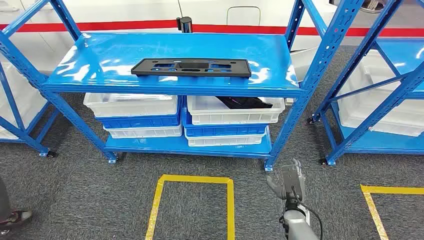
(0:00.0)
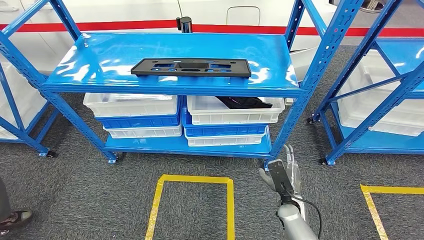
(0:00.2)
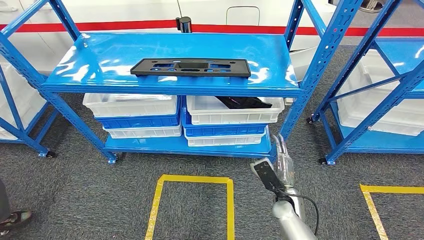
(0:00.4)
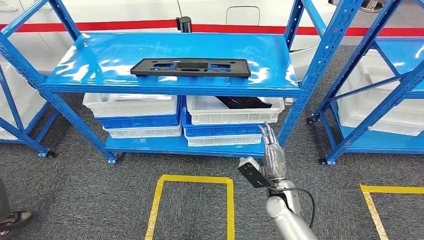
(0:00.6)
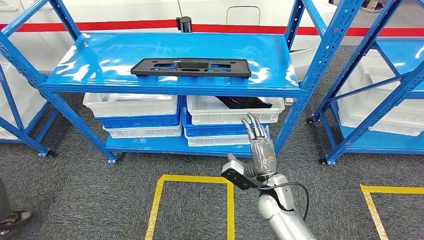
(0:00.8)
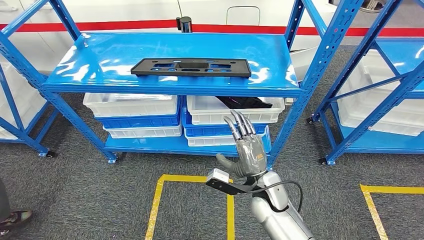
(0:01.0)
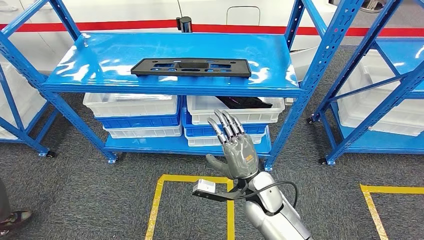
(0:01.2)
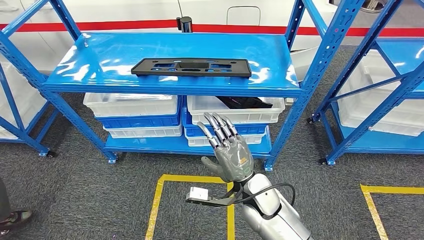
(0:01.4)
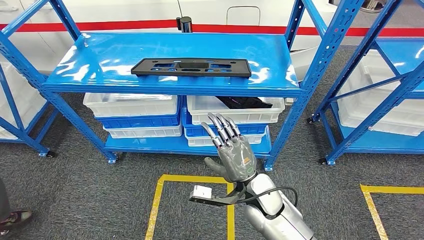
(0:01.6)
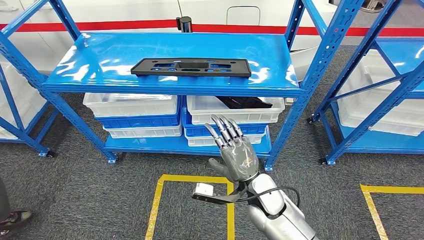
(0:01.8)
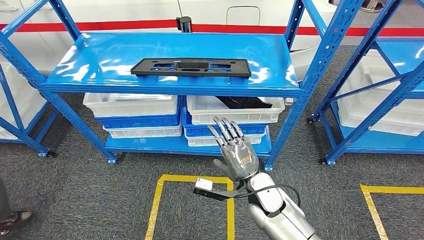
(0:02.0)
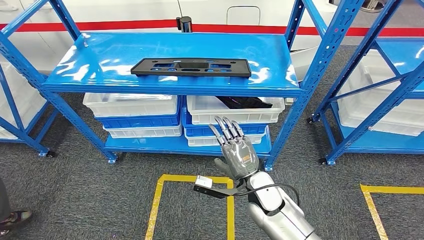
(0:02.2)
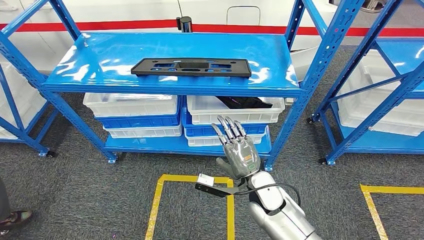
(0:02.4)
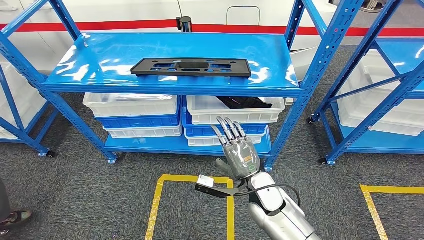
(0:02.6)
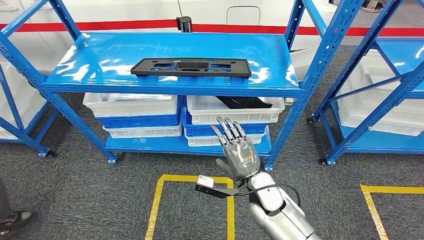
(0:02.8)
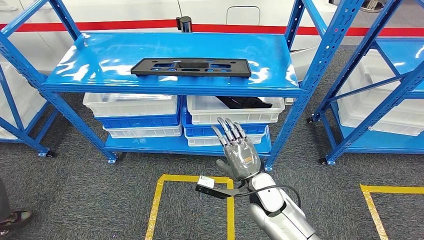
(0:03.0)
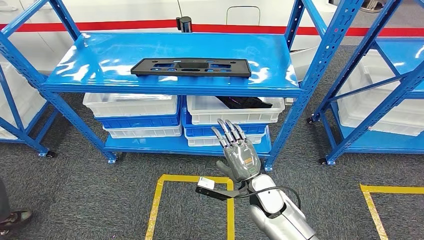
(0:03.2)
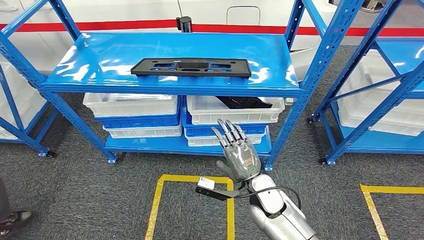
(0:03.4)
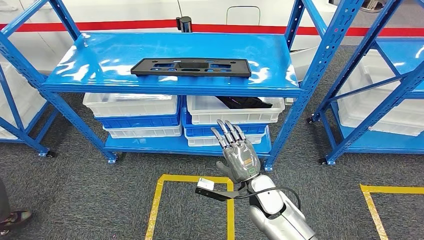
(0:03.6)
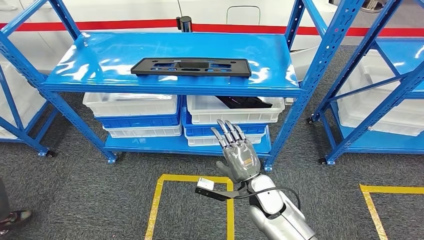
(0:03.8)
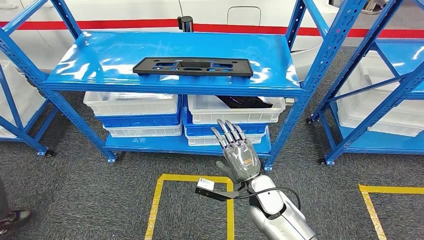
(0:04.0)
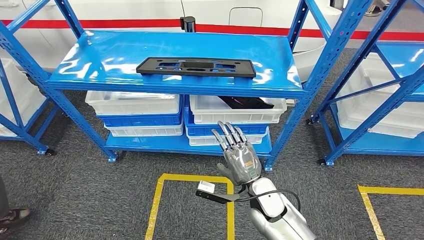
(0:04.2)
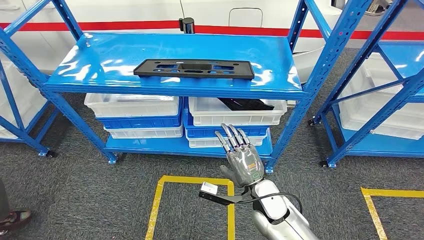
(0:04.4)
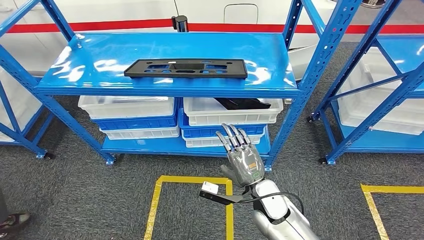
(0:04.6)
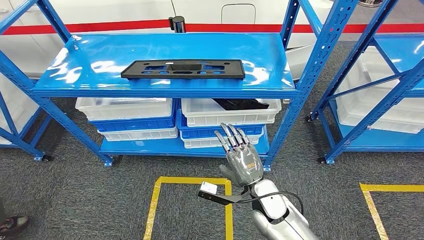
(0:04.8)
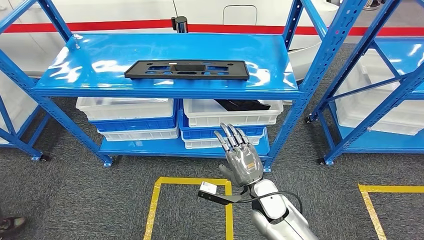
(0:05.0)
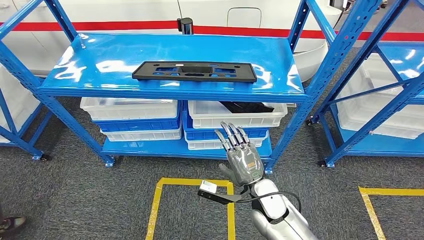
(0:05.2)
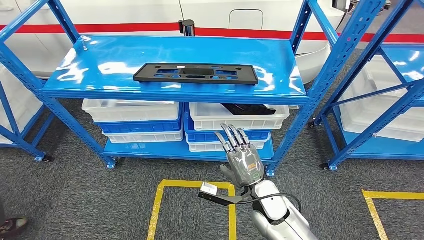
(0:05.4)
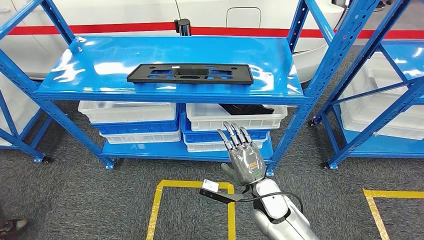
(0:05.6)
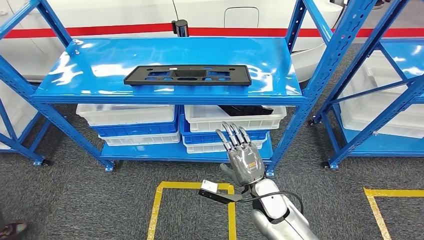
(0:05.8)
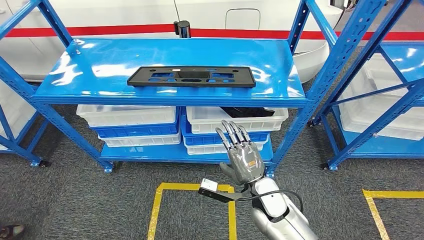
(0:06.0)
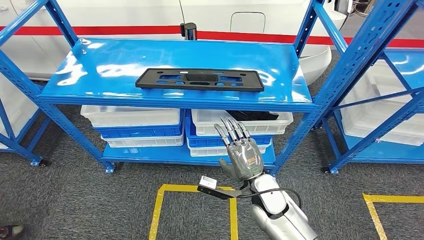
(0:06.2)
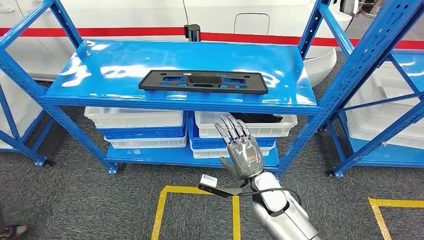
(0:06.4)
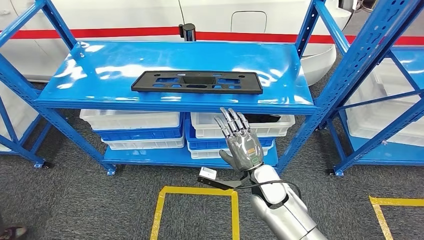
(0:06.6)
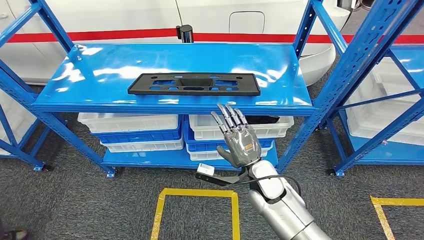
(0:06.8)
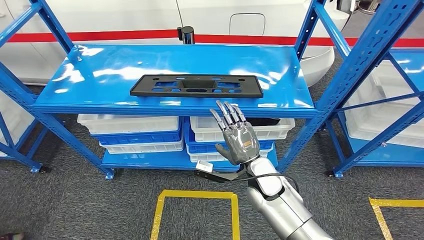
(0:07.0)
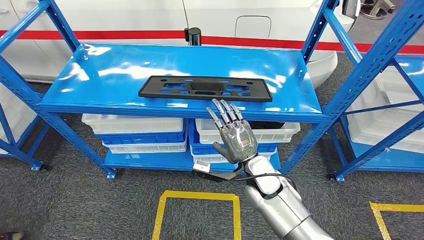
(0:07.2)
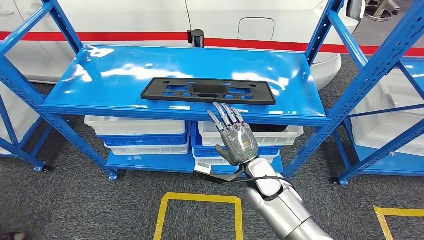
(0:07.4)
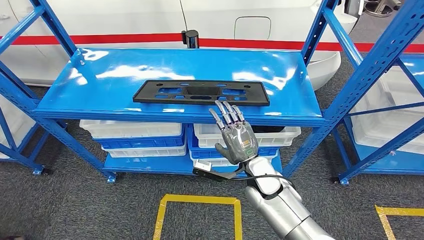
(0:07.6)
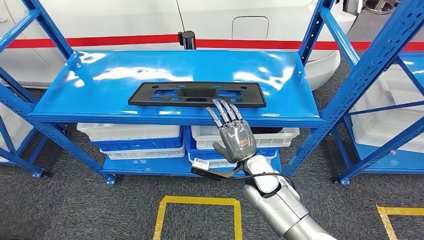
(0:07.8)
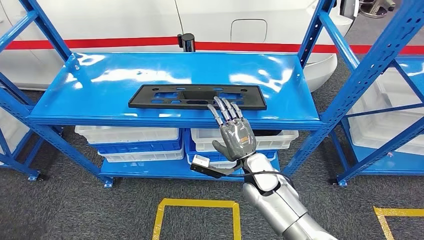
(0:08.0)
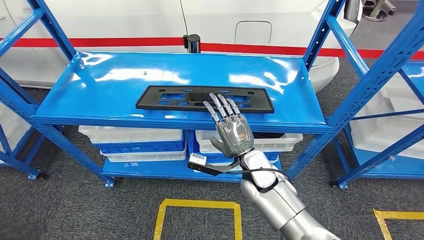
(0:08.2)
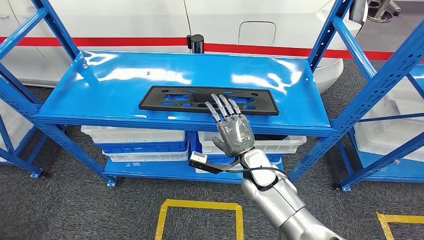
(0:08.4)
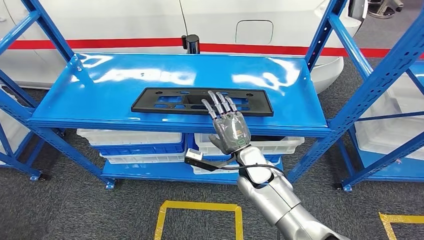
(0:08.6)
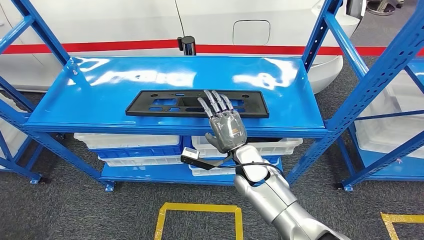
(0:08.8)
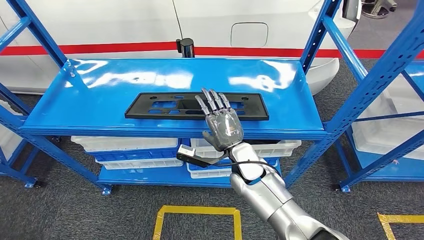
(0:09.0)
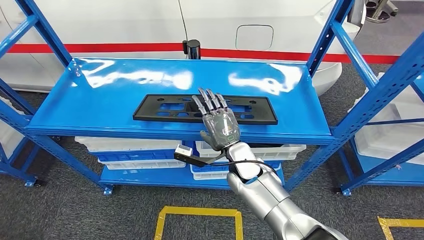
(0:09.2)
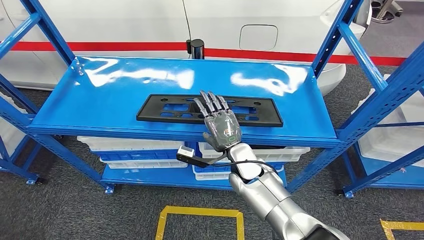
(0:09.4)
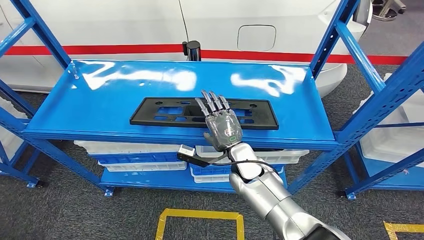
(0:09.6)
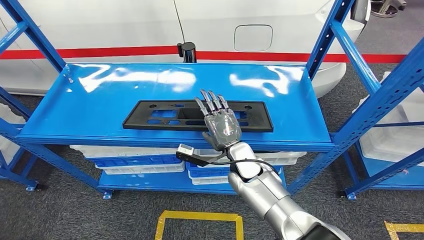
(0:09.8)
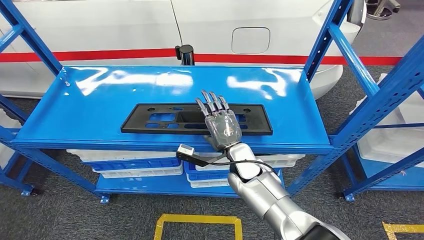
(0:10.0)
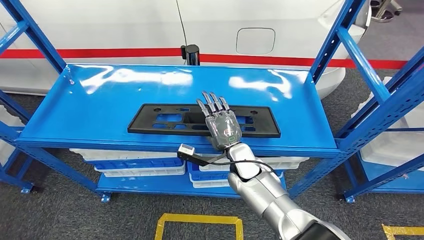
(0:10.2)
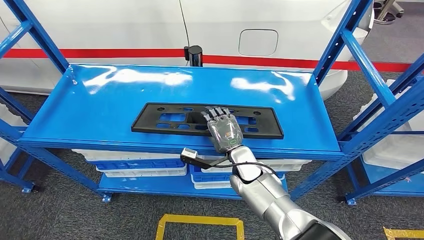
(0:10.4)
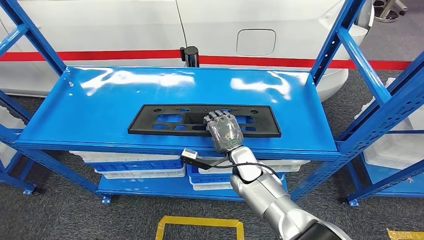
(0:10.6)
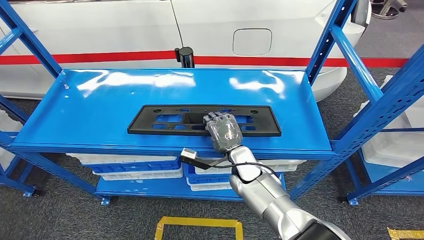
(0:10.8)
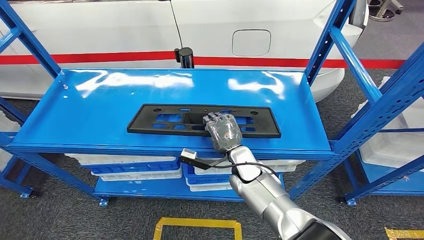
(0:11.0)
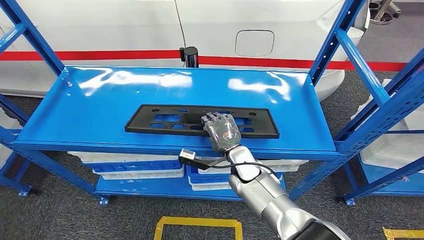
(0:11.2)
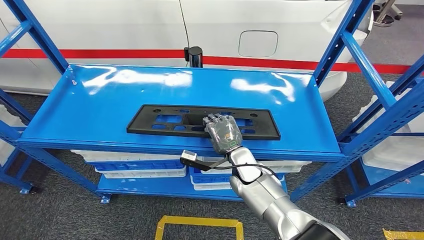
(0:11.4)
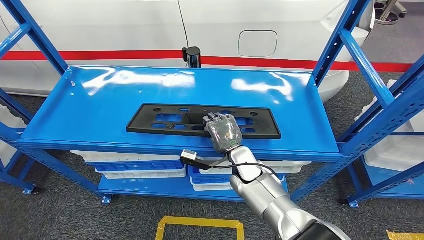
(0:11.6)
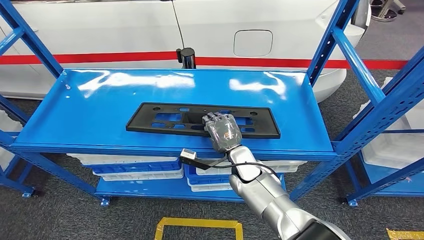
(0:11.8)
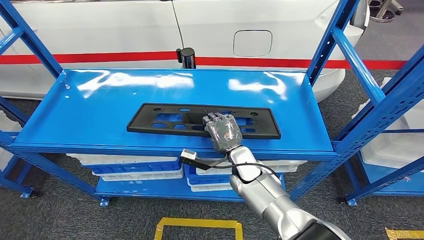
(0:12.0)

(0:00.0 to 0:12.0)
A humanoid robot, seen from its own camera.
0:01.6 - 0:03.0: The hands move only a little.

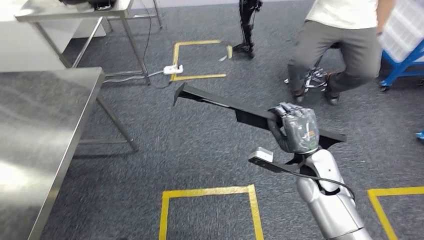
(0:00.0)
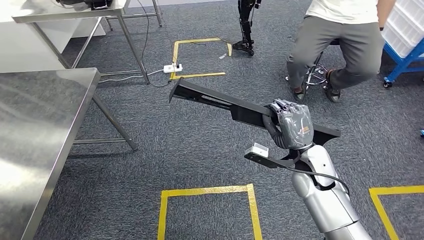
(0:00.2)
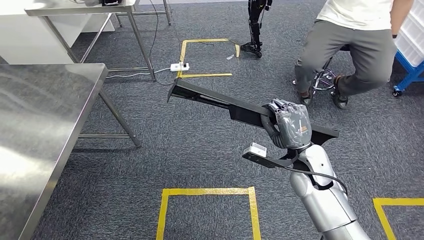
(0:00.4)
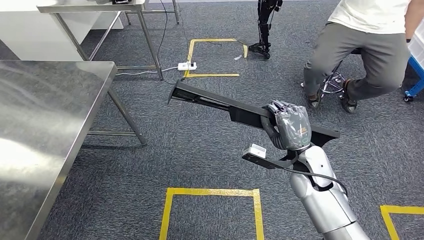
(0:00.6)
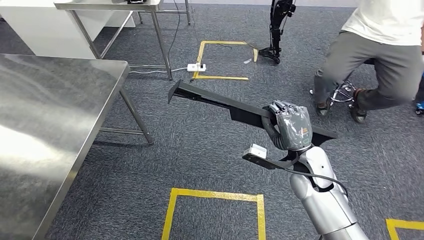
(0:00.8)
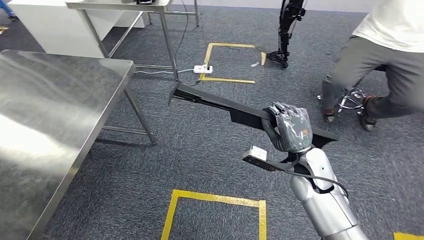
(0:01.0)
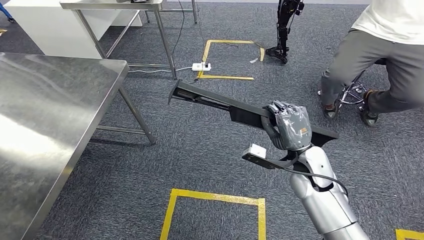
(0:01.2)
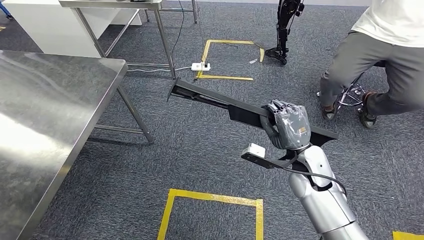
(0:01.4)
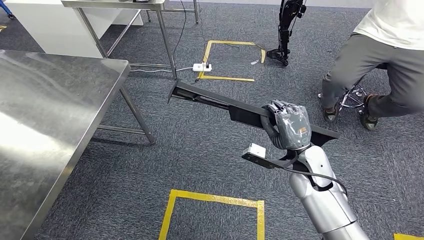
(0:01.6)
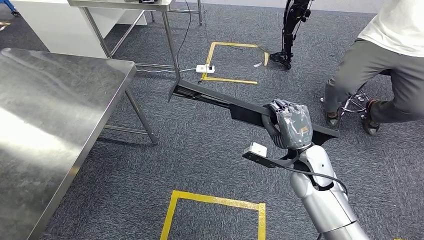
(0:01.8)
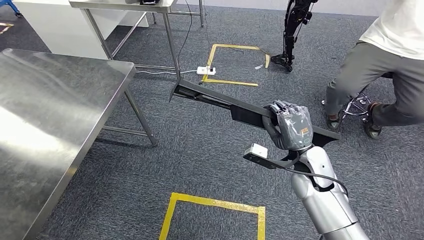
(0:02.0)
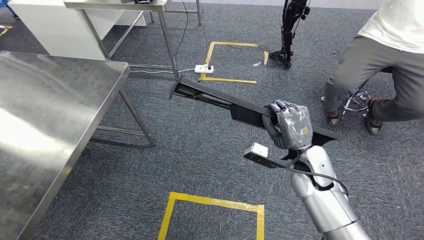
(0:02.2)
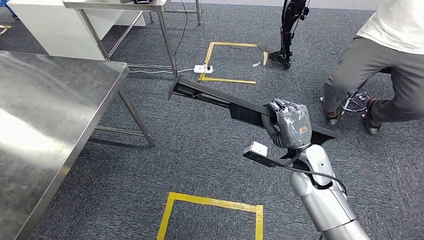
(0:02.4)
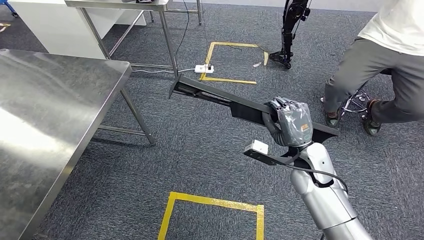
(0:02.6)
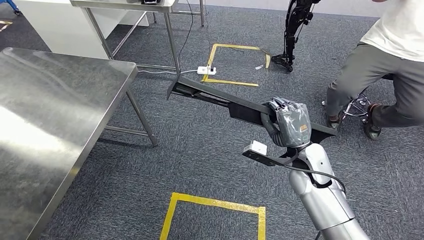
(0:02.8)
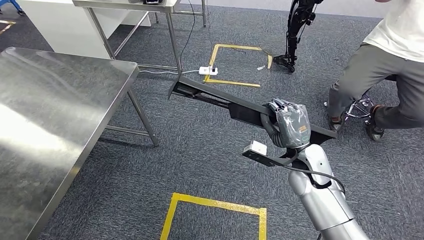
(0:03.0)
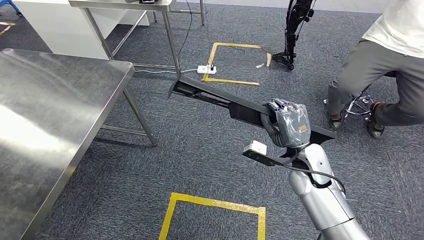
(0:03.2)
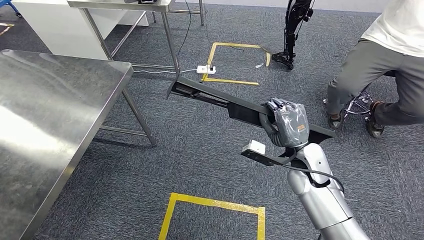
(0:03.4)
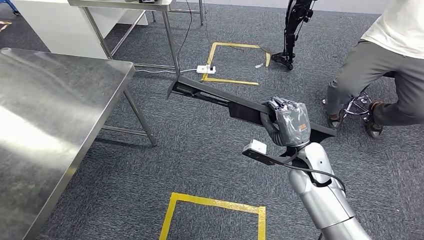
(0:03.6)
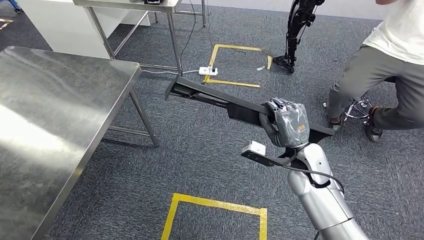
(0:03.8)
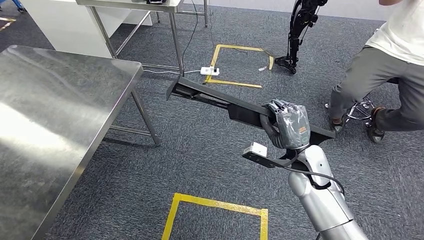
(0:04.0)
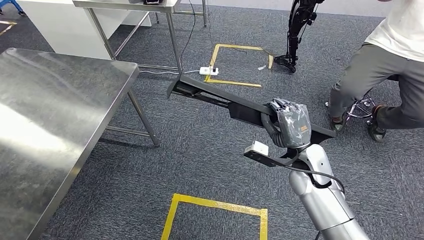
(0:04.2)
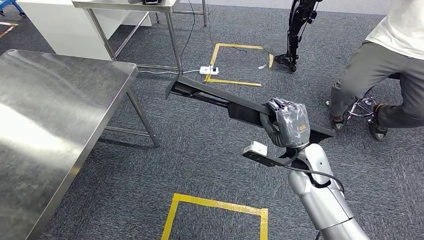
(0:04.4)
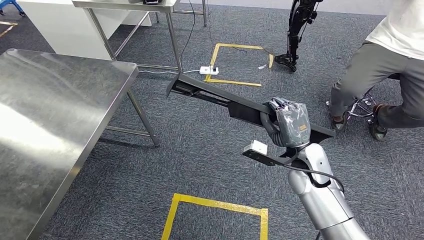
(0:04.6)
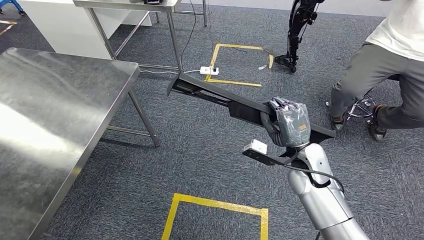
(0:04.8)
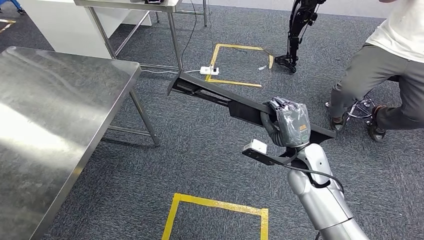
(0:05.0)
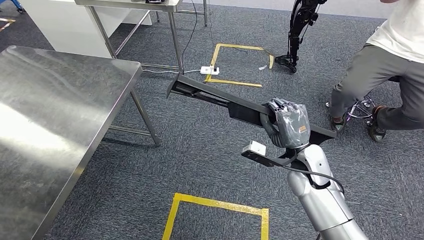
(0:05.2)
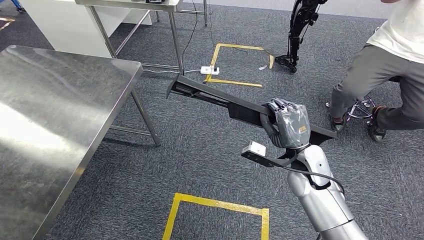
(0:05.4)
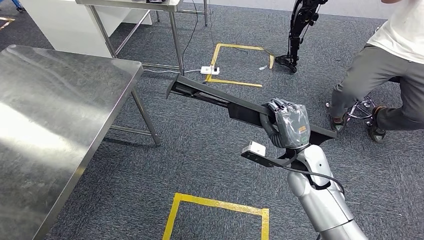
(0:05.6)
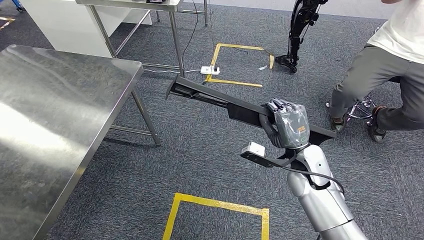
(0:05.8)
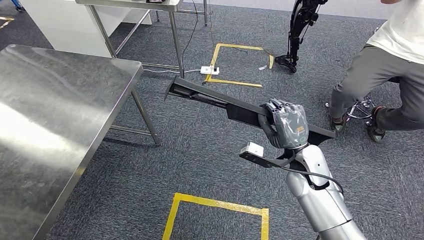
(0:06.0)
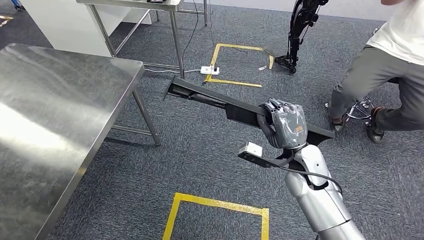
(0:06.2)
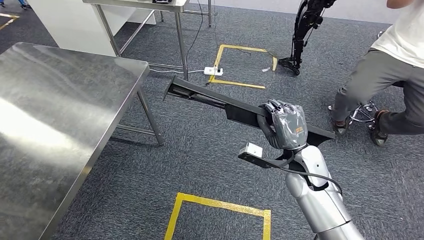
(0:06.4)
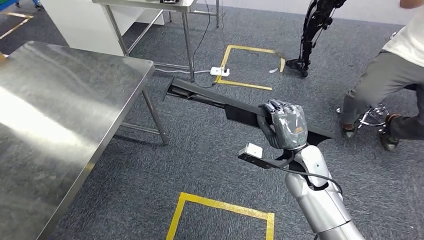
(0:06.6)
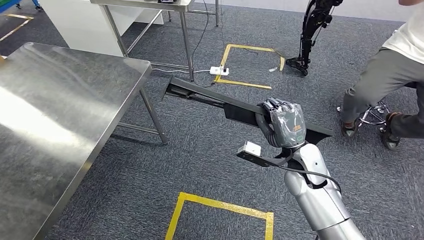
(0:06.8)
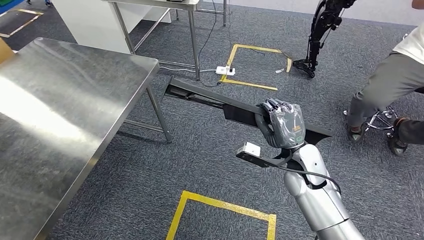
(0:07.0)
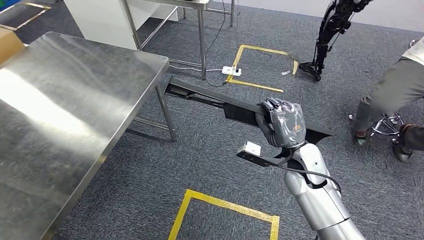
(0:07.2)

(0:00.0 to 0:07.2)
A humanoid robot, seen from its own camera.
0:02.8 - 0:05.8: Both hands stay put.
